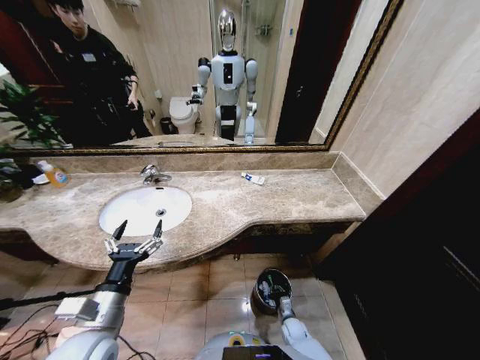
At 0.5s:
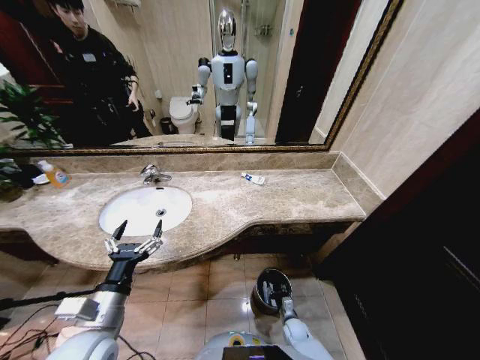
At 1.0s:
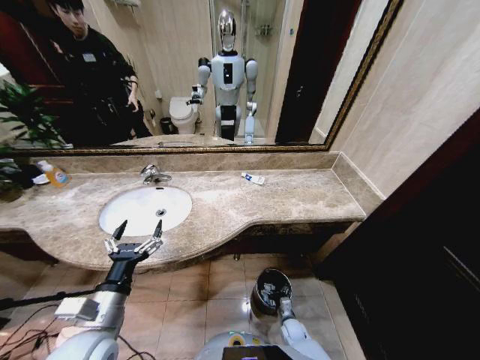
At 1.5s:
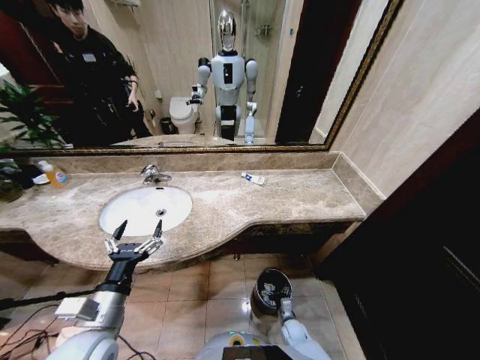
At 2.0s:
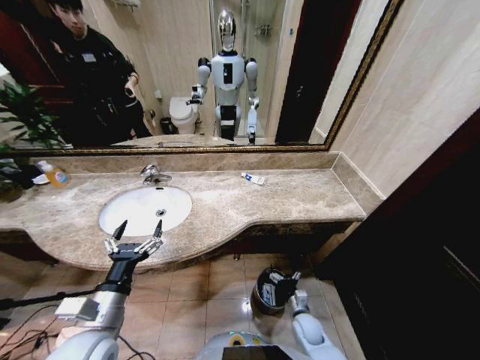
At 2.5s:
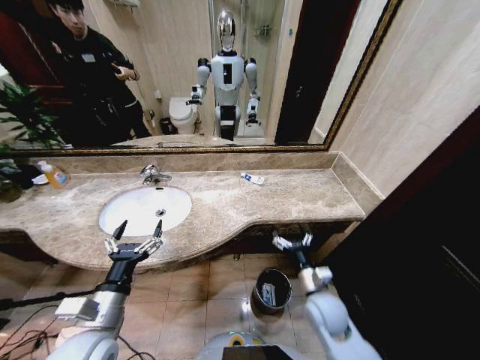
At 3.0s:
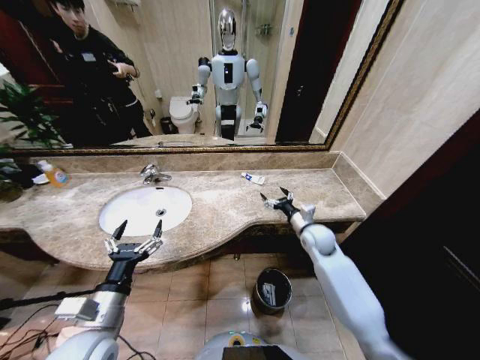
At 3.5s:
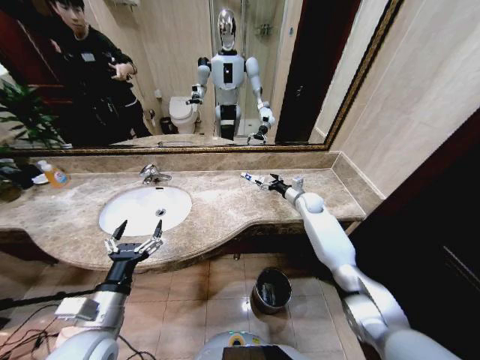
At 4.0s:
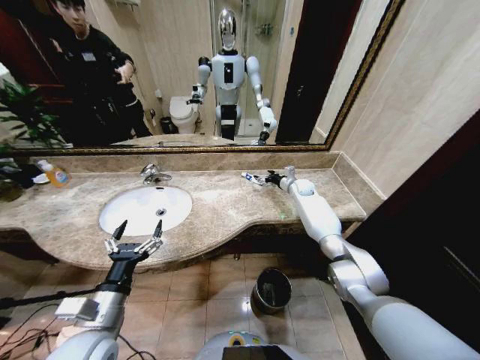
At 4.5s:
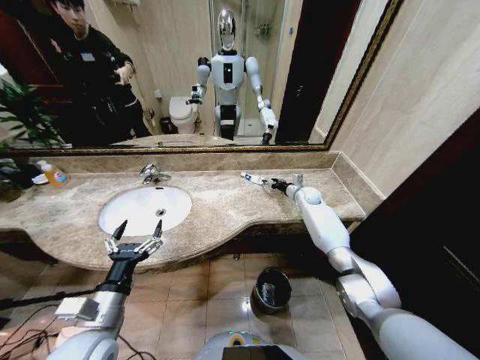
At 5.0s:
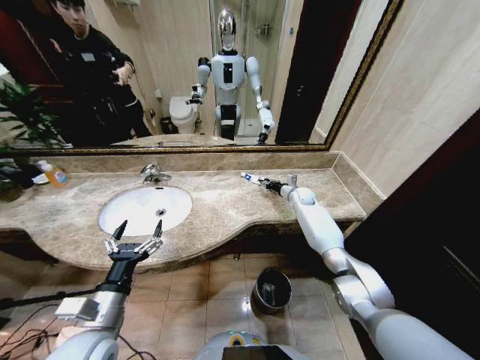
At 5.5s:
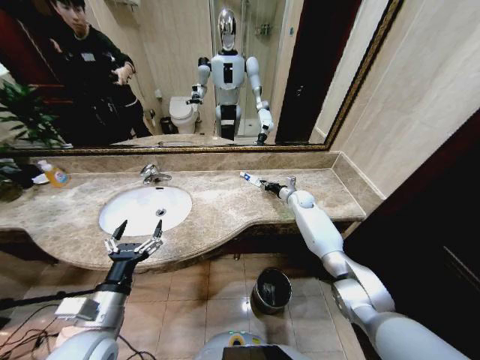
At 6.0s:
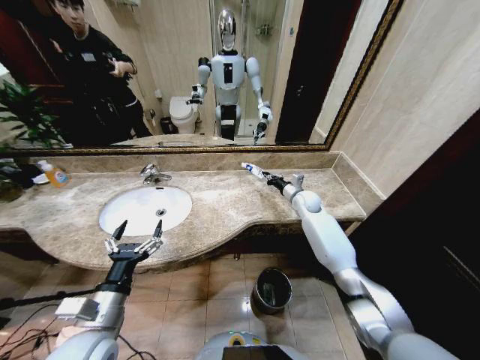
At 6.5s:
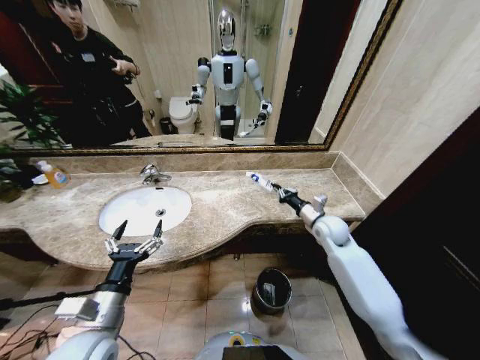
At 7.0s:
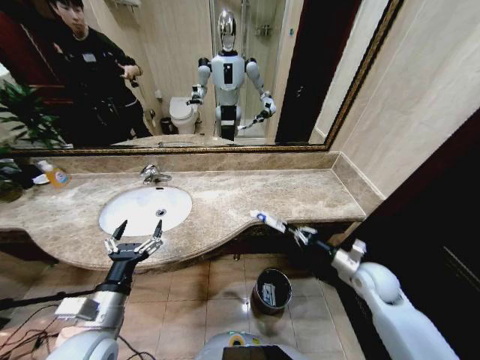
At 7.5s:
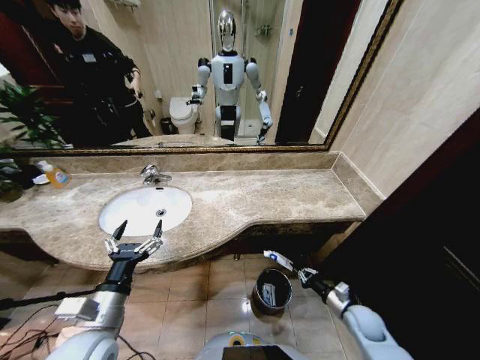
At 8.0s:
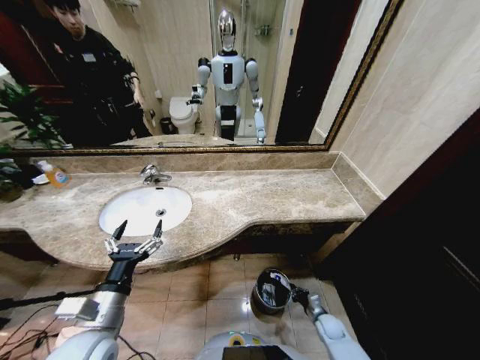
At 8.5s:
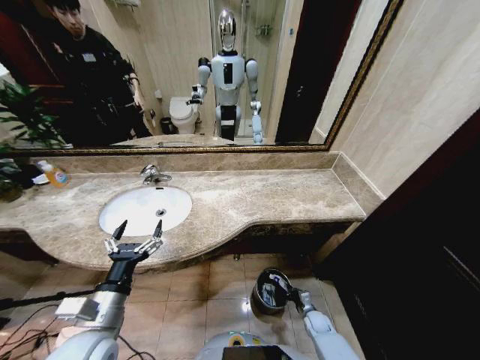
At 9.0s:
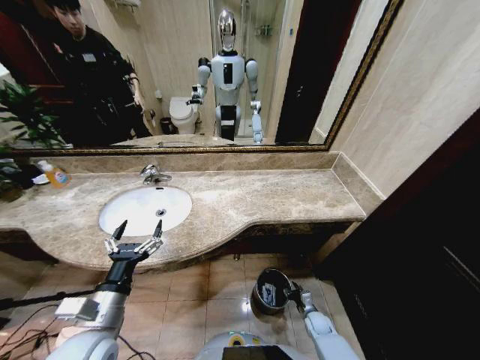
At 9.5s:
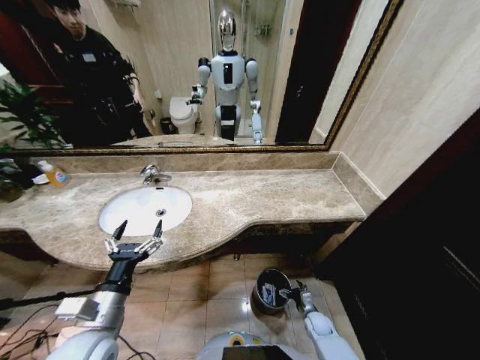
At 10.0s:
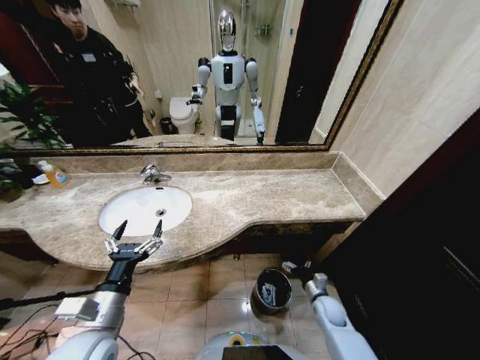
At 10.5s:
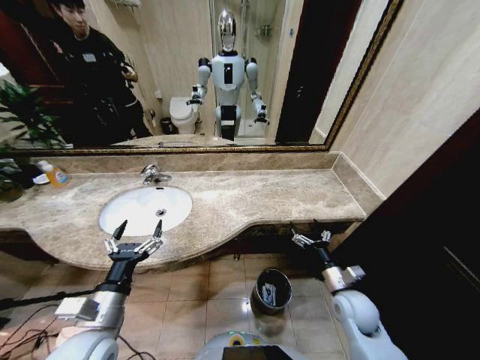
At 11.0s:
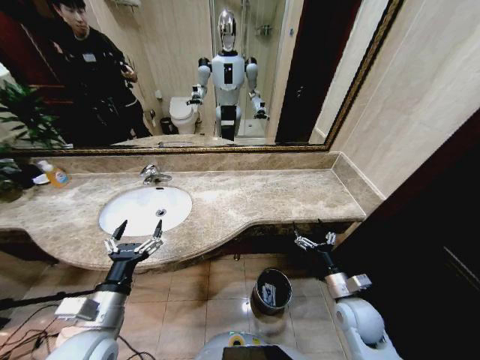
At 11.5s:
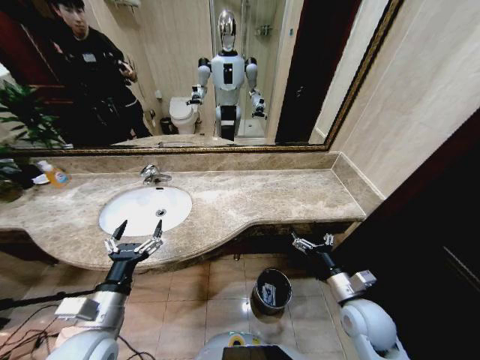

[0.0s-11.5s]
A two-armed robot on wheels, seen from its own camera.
Task of the whole recording: Pick up the trash from the sink and place it in the trash bin.
0.0s to 2.0s: The right gripper heads upward, covering roughly 10 cm, and opens up.
2.0s to 4.0s: The right gripper shifts about 50 cm forward and upward.
4.0s to 6.0s: The right gripper goes some 10 cm backward, and closes its fingers.
6.0s to 7.5s: The right gripper is displaced backward and downward by approximately 40 cm.
7.5s to 9.5s: The right gripper travels downward and to the left by about 20 cm, and opens up.
9.5s to 11.5s: The right gripper travels upward by roughly 30 cm.

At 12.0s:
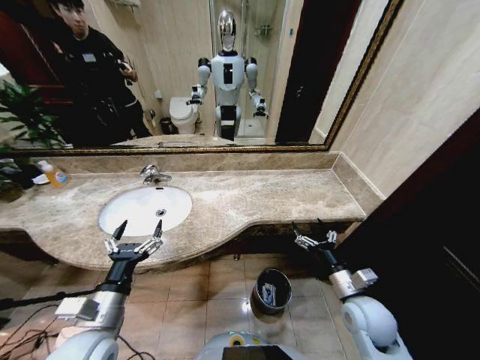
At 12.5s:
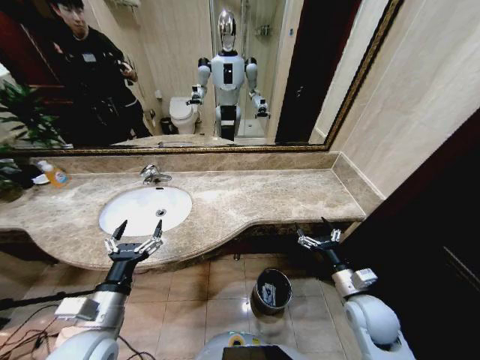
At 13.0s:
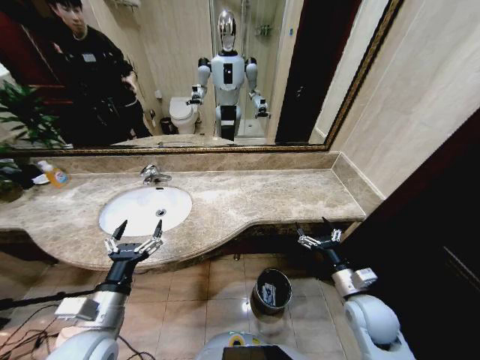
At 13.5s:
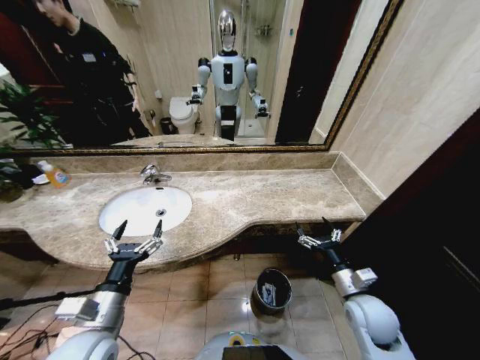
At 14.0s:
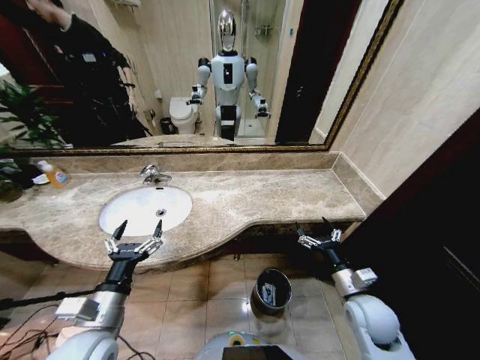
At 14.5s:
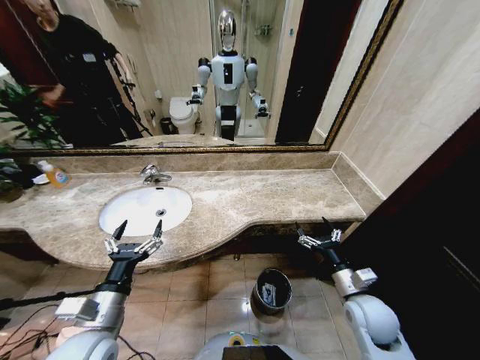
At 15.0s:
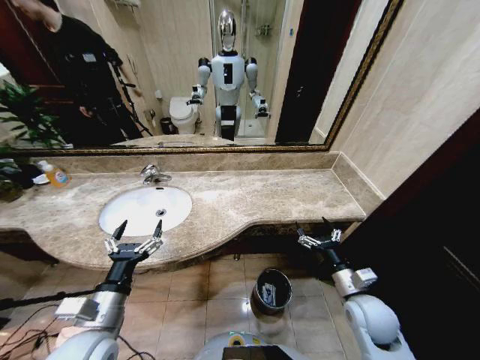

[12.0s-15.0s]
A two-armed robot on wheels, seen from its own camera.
Task of the whole recording: Pick up the trash from the sink and place it in the trash bin.
12.0s to 13.5s: The grippers make only small movements.
13.5s to 15.0s: Both grippers stay about where they are.
